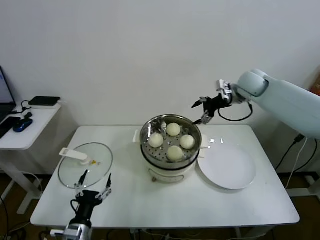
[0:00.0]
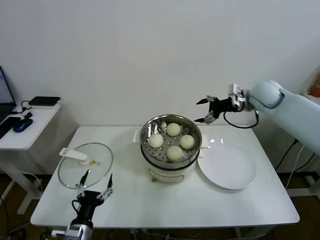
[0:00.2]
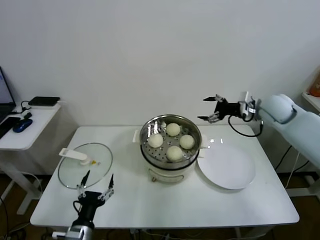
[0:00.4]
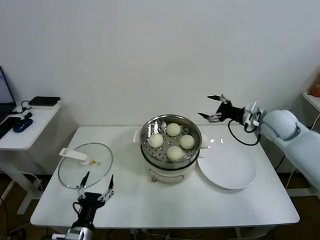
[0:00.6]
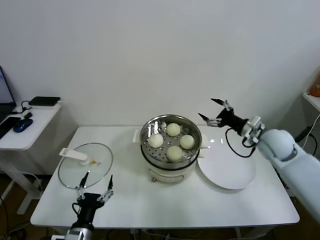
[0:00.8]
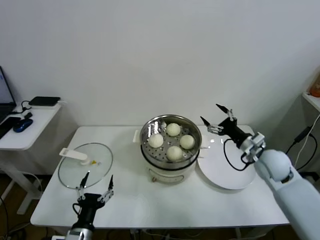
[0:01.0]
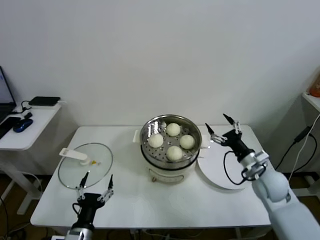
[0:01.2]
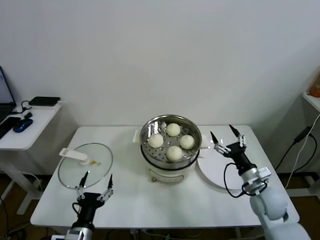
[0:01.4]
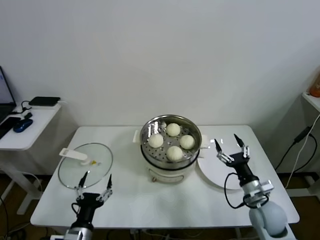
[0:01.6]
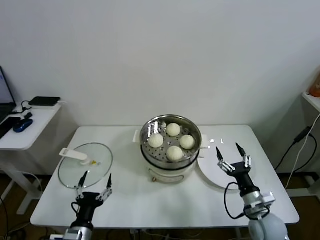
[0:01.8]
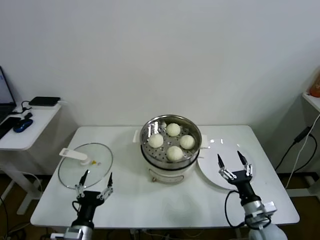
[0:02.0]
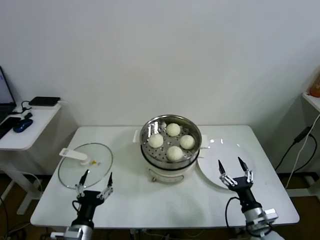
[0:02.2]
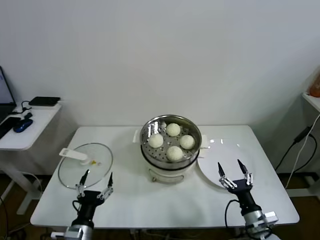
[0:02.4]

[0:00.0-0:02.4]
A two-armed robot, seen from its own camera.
Task of the whole recording: take steamed baozi put them in steamer.
0:00.0 to 0:01.2: The right gripper heads backward and downward, covering some 30 cm.
0:01.2 to 0:02.4: The right gripper heads backward and downward, covering some 20 cm.

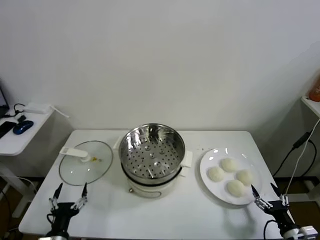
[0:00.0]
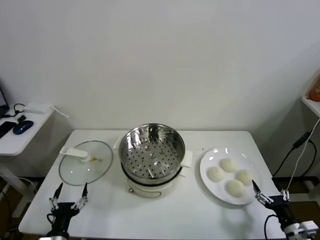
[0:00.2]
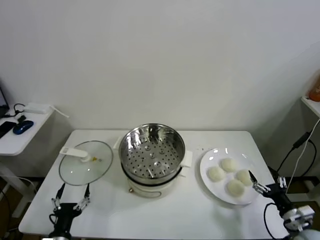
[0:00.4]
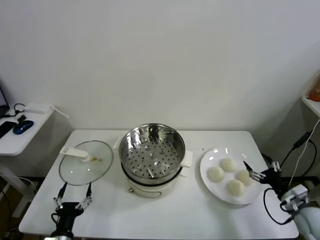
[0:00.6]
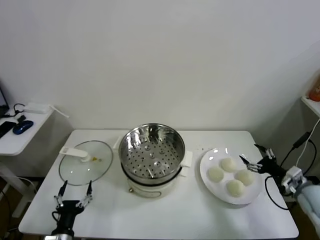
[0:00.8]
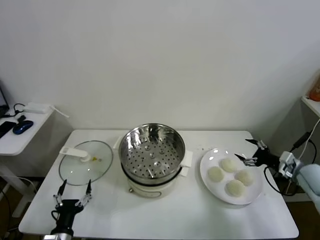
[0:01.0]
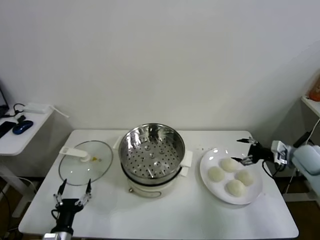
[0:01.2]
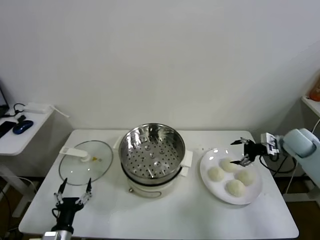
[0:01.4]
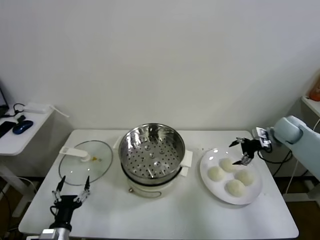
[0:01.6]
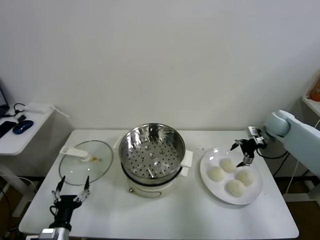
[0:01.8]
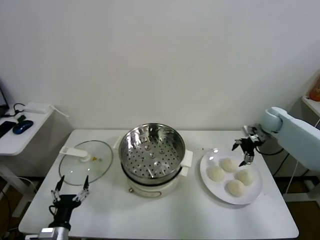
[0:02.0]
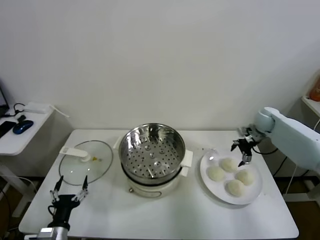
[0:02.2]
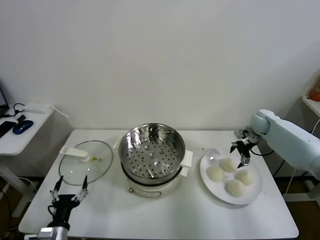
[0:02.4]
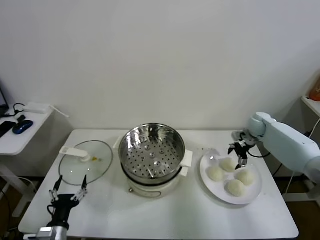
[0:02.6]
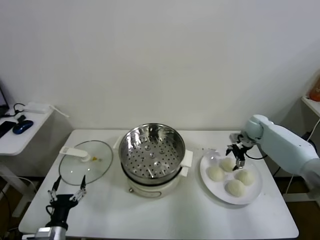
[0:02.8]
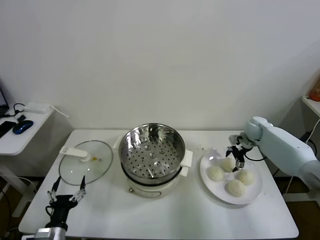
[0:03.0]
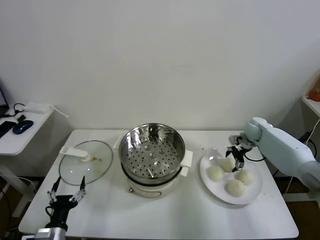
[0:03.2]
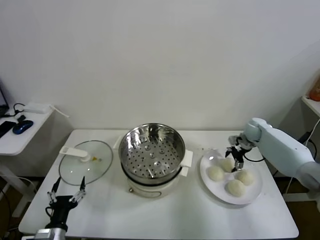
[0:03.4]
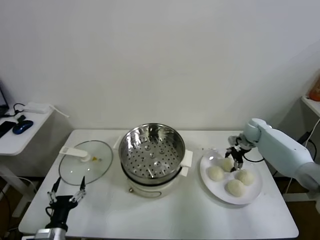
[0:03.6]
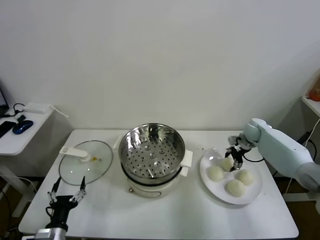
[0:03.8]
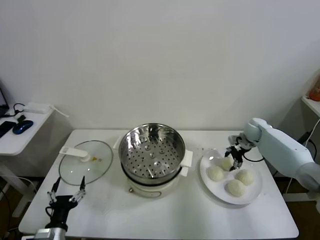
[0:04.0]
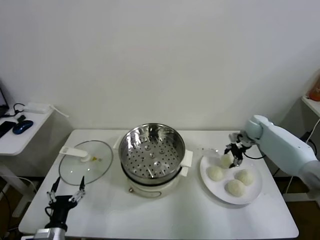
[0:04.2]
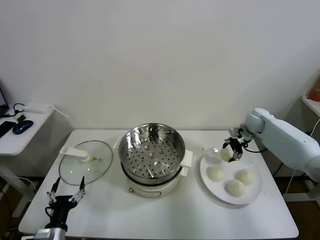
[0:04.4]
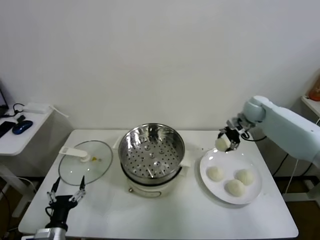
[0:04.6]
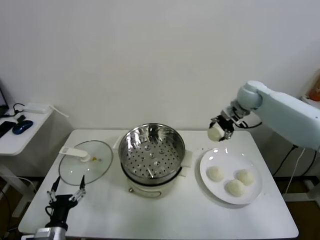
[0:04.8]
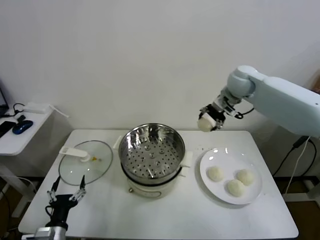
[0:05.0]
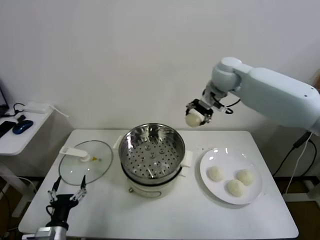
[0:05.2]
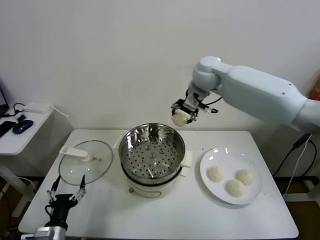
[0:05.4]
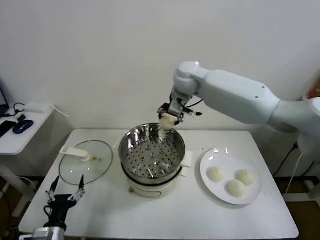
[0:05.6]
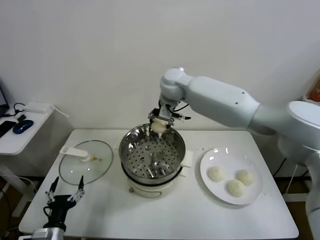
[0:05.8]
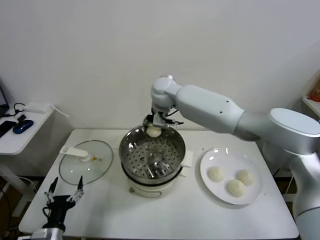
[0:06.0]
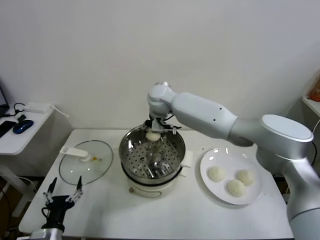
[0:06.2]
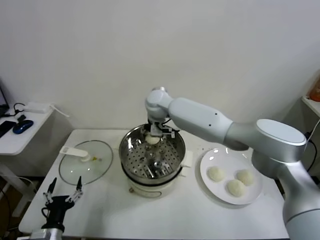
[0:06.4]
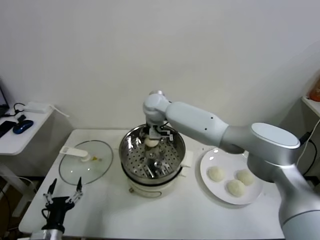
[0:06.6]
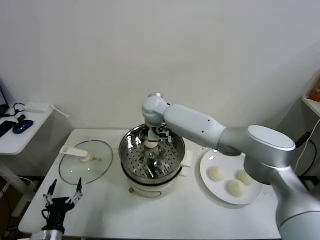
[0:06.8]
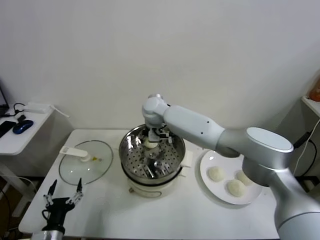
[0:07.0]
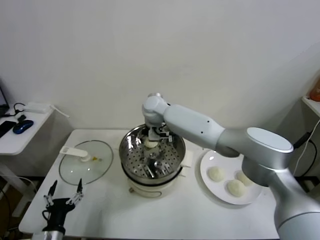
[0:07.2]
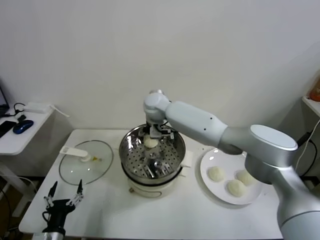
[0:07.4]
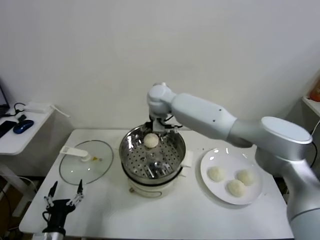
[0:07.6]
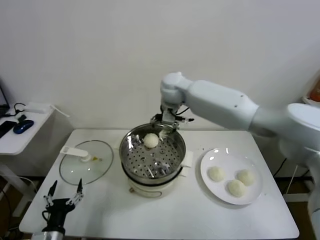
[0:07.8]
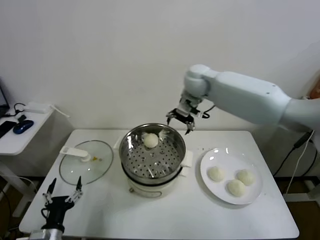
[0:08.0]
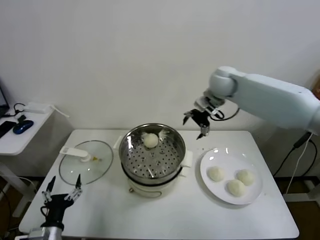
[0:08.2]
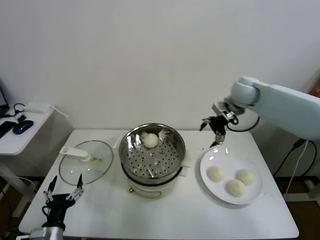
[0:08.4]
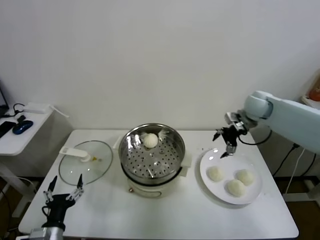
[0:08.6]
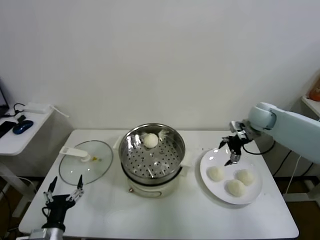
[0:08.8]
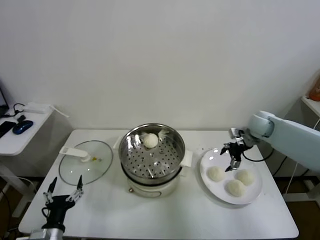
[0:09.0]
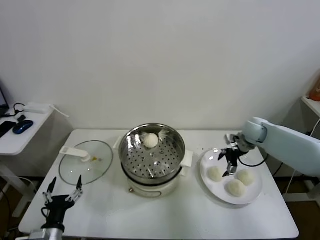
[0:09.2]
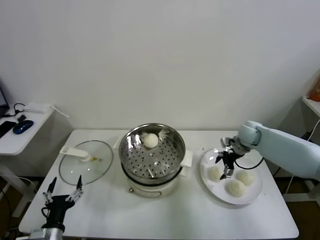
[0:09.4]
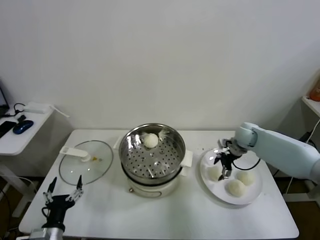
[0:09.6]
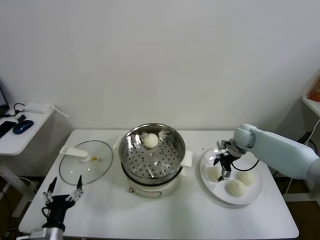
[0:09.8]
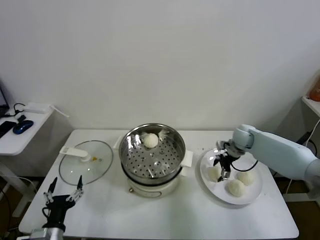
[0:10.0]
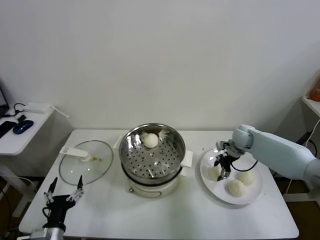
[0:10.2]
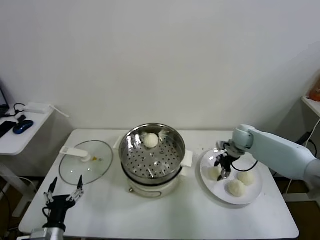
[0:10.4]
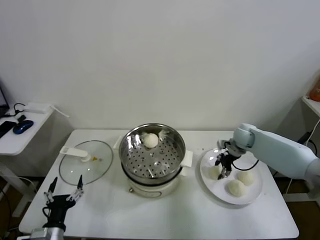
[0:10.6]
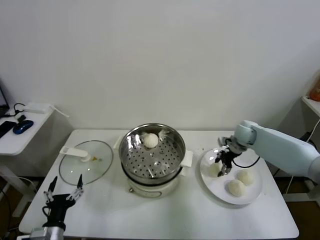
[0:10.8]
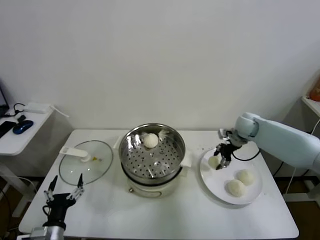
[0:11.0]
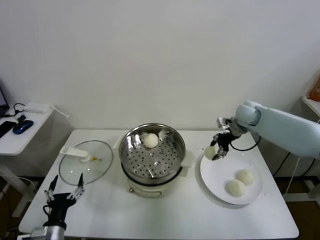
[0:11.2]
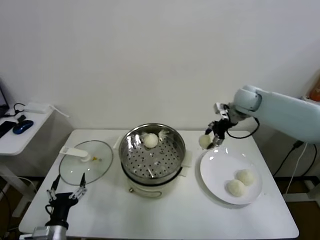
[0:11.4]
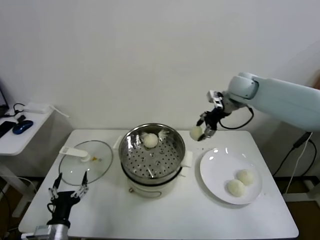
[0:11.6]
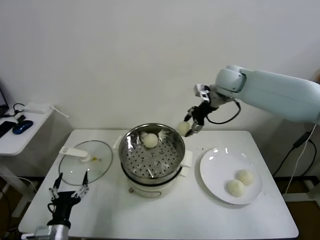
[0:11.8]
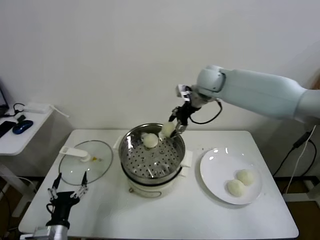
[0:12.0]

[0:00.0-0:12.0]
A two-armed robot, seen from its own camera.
Task of the whole recording: take steamed baozi put them in steamer.
Step, 0:00.0 to 0:03.8: Grasp the baozi in the plate with right gripper.
Step, 0:04.0 to 0:07.4: Place the baozi on the steamer with right gripper.
Step, 0:07.6 to 0:10.4: Grasp the baozi in the plate with right gripper.
0:01.6 to 0:03.0: The right gripper goes roughly 10 cm downward and forward.
0:03.0 to 0:04.4: The right gripper moves upward, roughly 10 cm, and closes its fingers.
0:04.4 to 0:06.0: The right gripper moves to the left, some 35 cm.
0:06.0 to 0:07.6: The right gripper opens its fingers.
0:07.6 to 0:09.0: The right gripper goes some 35 cm to the right.
0:09.0 to 0:10.4: The right gripper is displaced downward by roughly 5 cm, and closes.
0:10.4 to 0:12.0: The right gripper travels upward and to the left by some 30 cm.

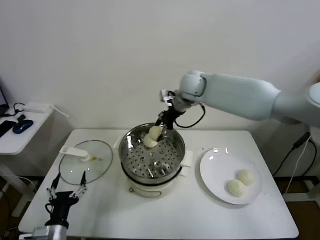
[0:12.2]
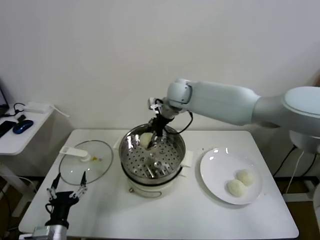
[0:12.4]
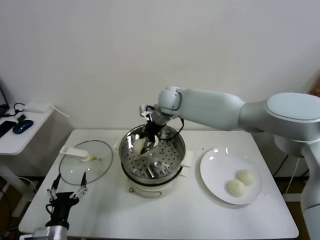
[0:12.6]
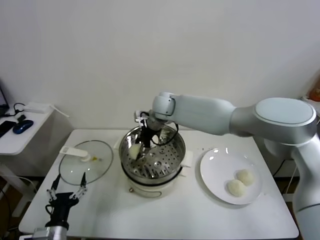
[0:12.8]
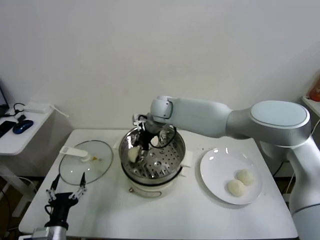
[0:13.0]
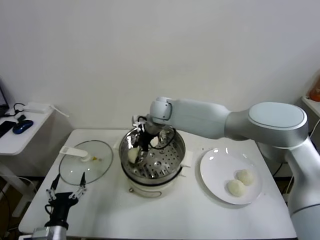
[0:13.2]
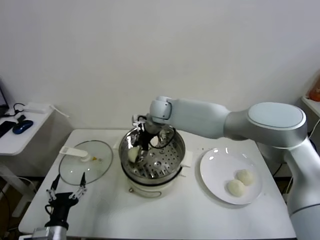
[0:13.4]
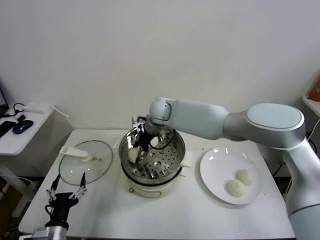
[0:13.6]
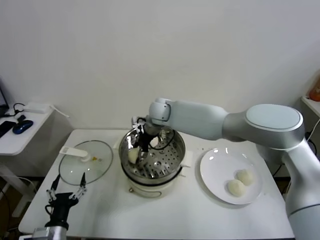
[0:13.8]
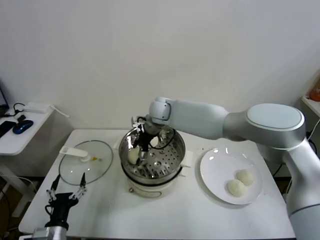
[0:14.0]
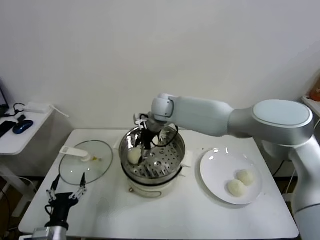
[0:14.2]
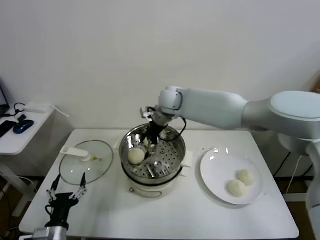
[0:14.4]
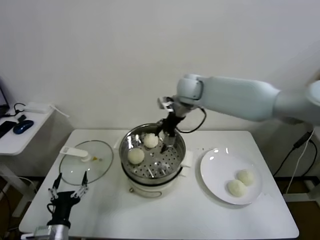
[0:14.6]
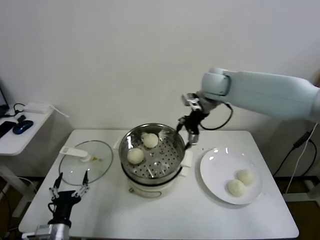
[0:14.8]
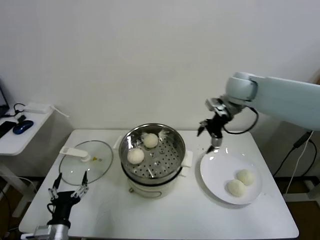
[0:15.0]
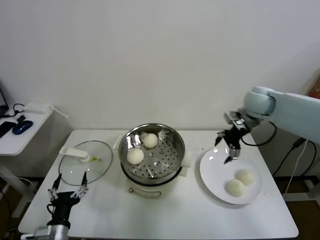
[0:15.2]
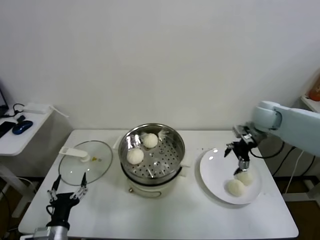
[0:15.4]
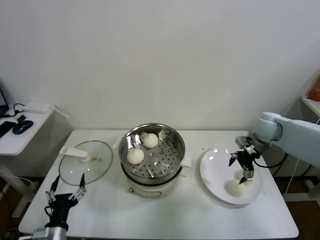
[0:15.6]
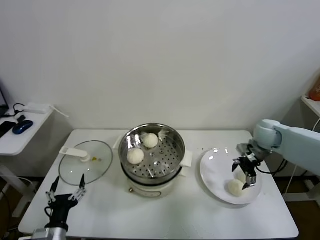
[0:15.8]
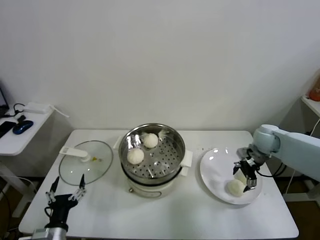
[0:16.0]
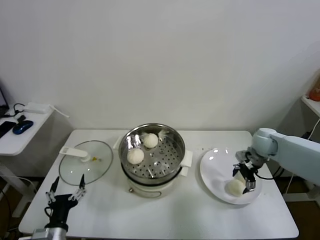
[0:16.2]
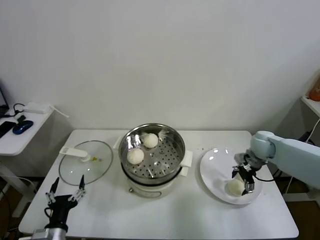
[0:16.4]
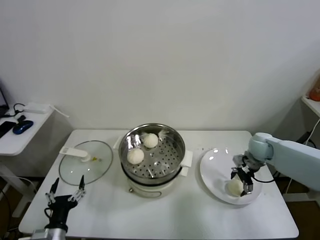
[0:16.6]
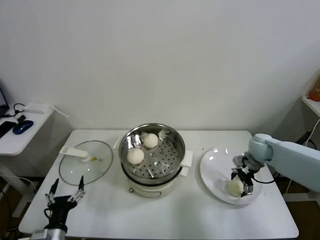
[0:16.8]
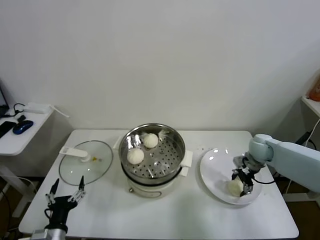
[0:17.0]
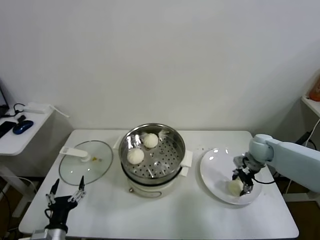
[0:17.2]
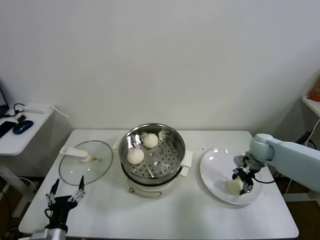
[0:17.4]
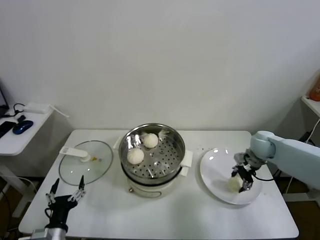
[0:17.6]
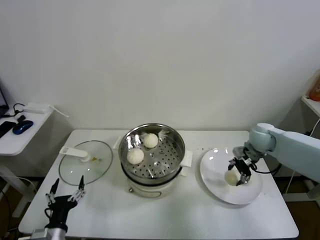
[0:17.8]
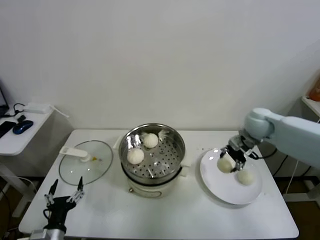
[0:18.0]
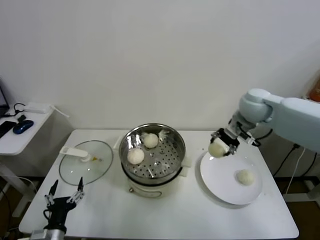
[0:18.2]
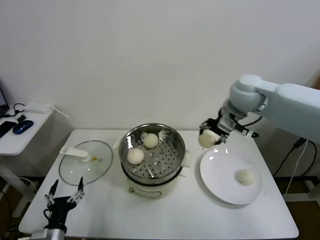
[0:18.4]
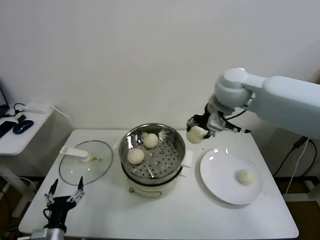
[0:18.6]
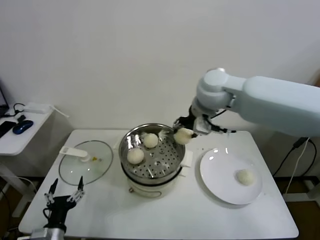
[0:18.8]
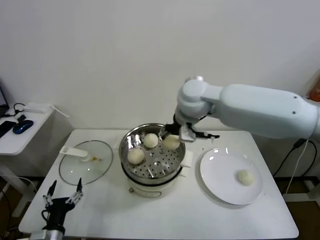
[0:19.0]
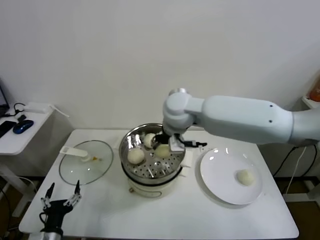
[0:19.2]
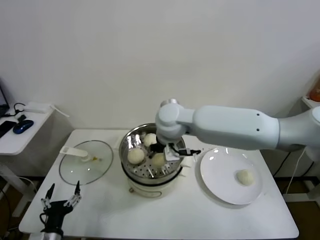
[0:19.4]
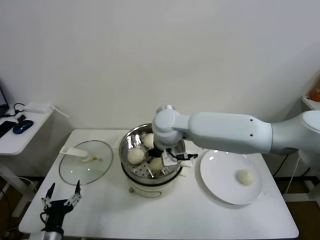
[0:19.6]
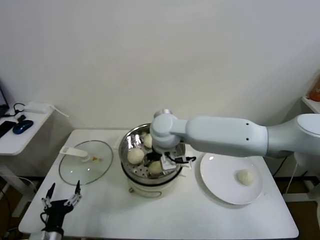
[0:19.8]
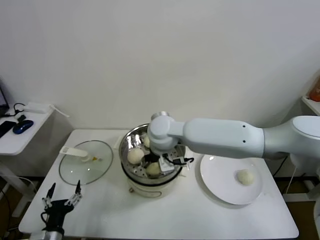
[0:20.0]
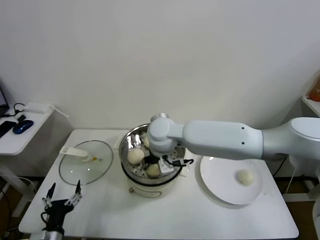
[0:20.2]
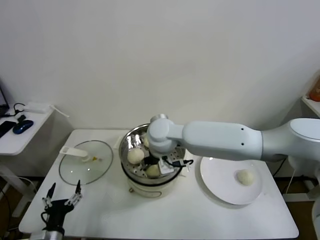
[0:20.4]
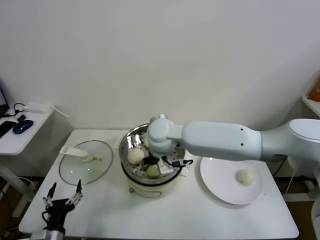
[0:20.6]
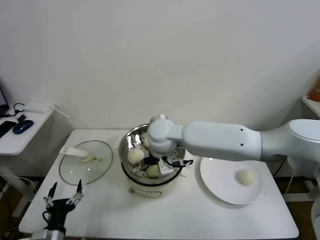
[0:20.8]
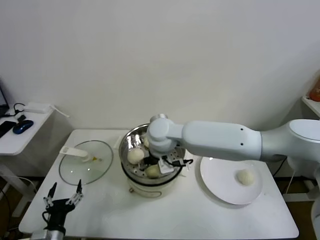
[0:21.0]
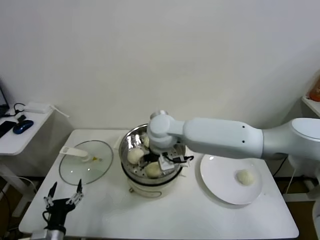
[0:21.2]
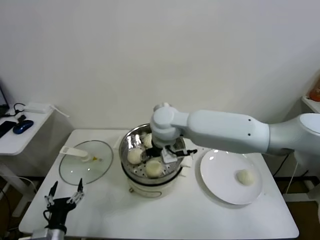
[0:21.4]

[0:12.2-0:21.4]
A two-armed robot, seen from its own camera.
Task of the whole recording: take steamed baozi put them in steamer.
Step, 0:12.2 to 0:14.4: Place the baozi on the steamer with right gripper.
Step, 0:14.6 to 0:17.2: Grasp the baozi in the plate with right gripper.
Step, 0:17.4 to 0:21.2: Place the baozi on the steamer with right gripper.
0:12.2 to 0:13.8: The right gripper moves to the left and downward, approximately 15 cm.
0:13.8 to 0:15.2: The right gripper travels to the right by approximately 30 cm, and opens up.
0:15.2 to 0:16.8: The right gripper is displaced downward by about 20 cm.
0:16.8 to 0:18.4: The right gripper shifts about 30 cm upward and to the left, and closes up.
0:18.4 to 0:19.8: The right gripper moves to the left and downward, approximately 25 cm.
0:19.8 to 0:21.4: The right gripper opens.
